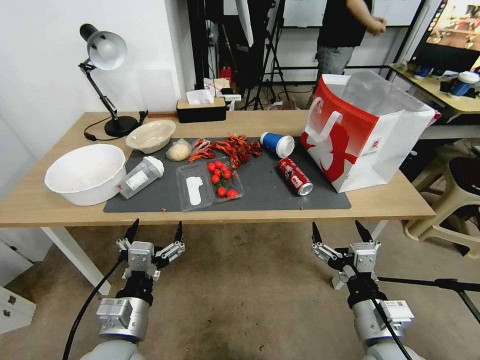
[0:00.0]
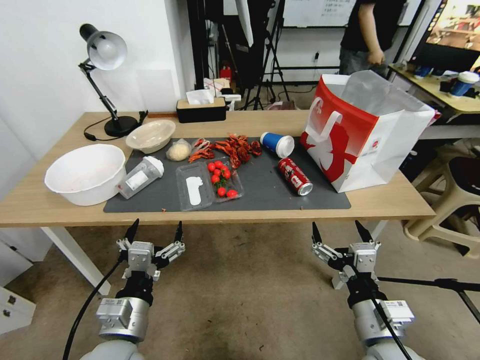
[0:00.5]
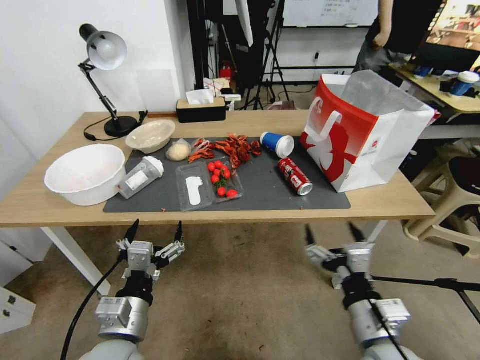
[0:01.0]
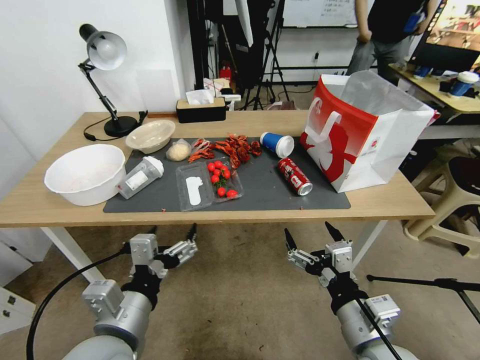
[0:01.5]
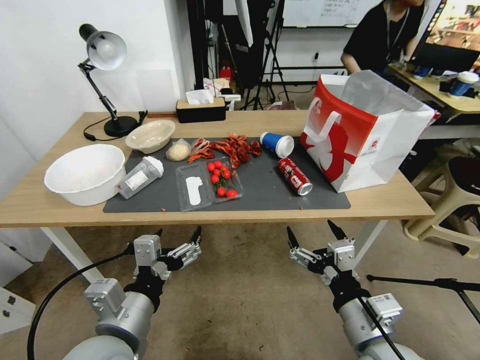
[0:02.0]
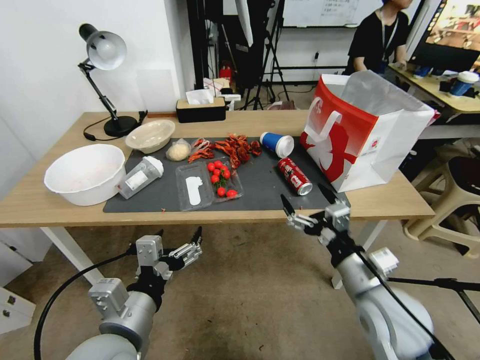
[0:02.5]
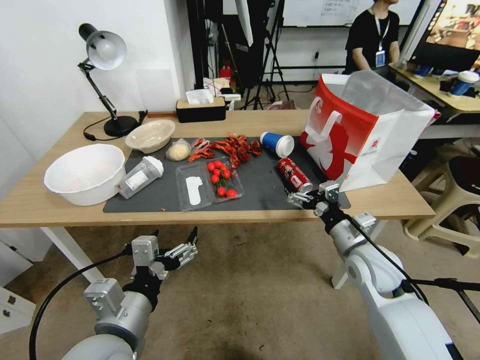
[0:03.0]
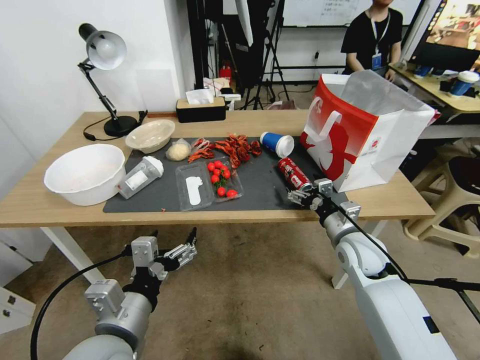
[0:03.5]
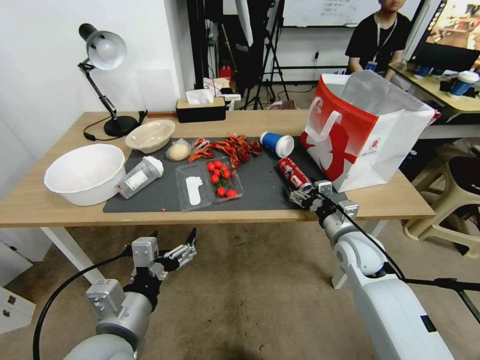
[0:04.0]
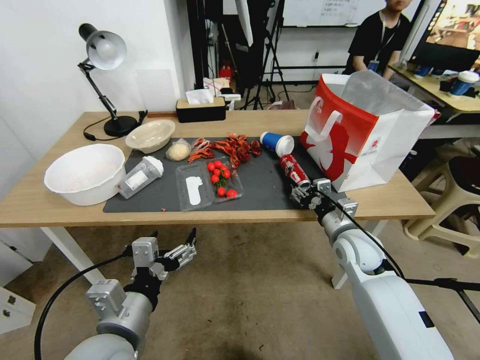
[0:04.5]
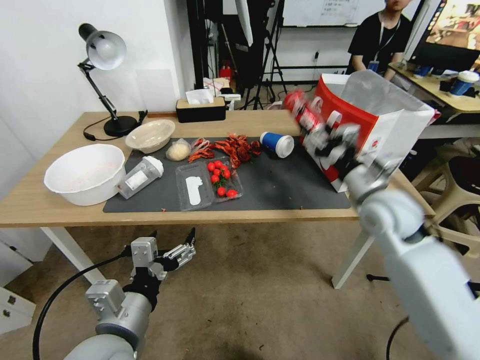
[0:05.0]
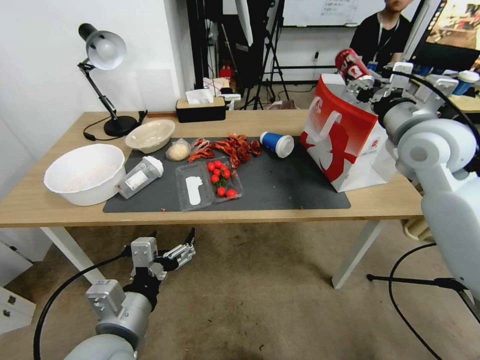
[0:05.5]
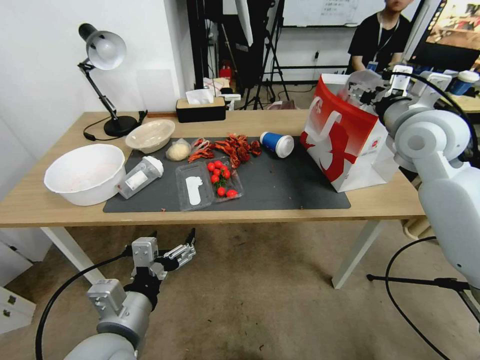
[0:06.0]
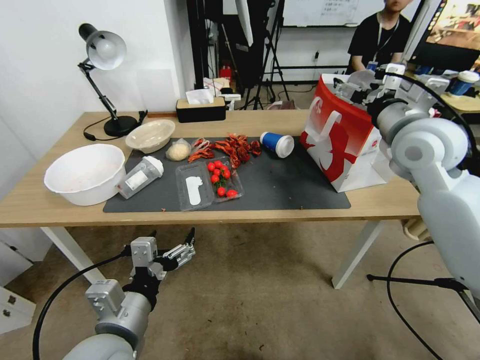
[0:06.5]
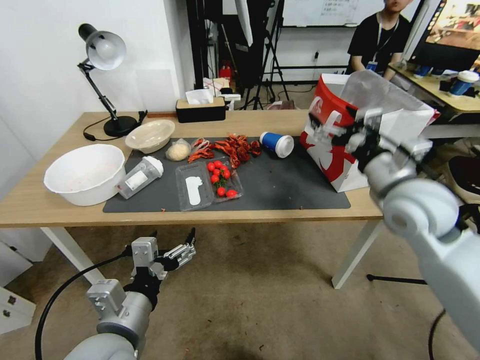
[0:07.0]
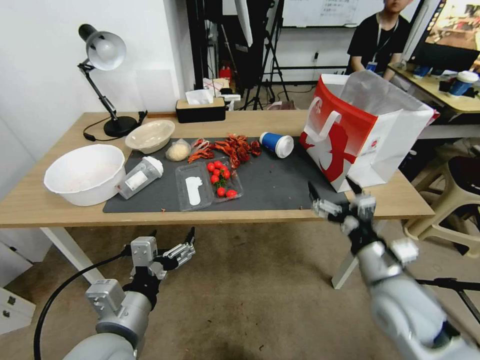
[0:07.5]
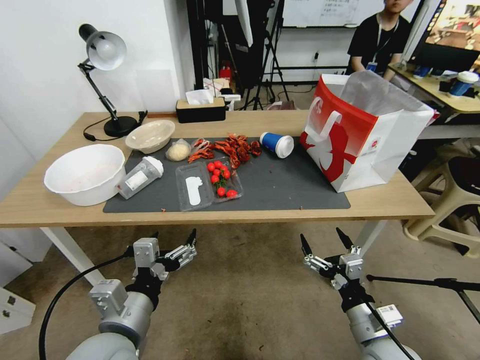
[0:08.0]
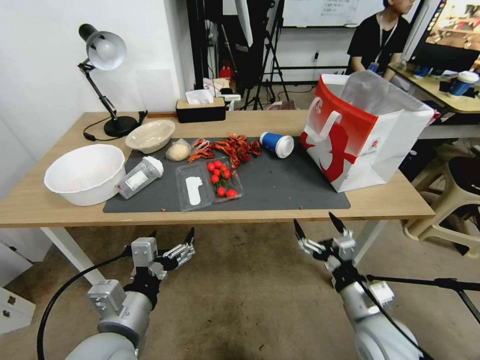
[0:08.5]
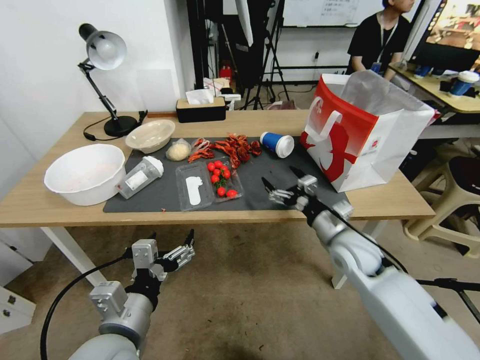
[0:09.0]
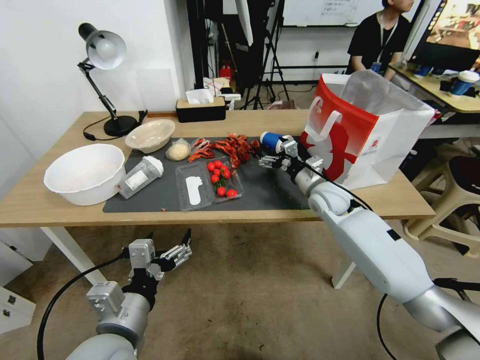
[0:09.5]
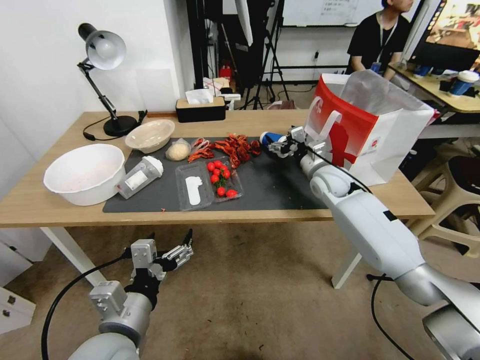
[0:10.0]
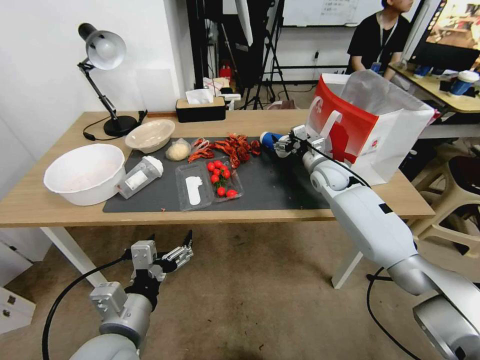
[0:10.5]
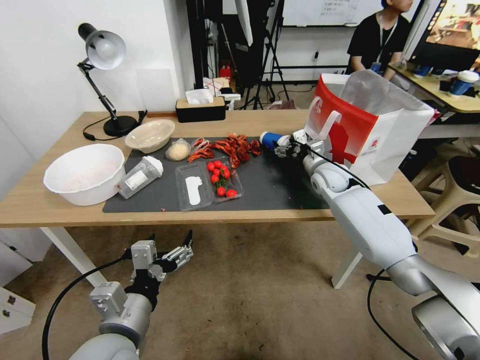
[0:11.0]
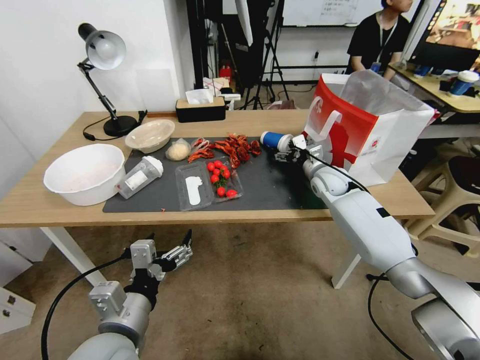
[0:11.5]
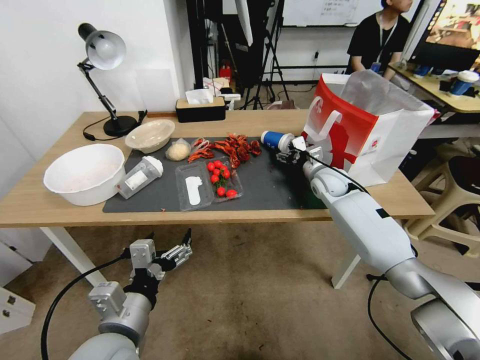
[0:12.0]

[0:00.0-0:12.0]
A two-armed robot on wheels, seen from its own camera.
0:02.0 to 0:04.0: The right gripper moves forward, about 20 cm, and closes up.
0:04.0 to 0:06.0: The right gripper is displaced upward by approximately 25 cm, and closes, then opens again.
0:06.0 to 0:08.0: The right gripper moves downward and backward, approximately 40 cm, and opens.
0:08.0 to 0:10.0: The right gripper travels forward by approximately 35 cm.
0:10.0 to 0:12.0: The grippers stay close to where they were, moving slightly.

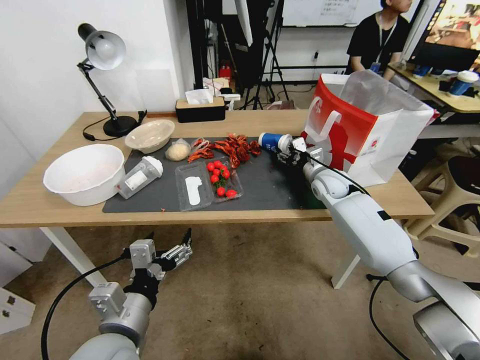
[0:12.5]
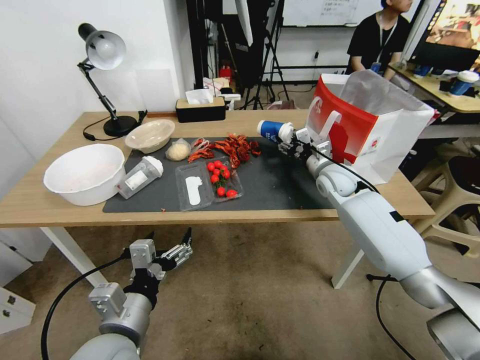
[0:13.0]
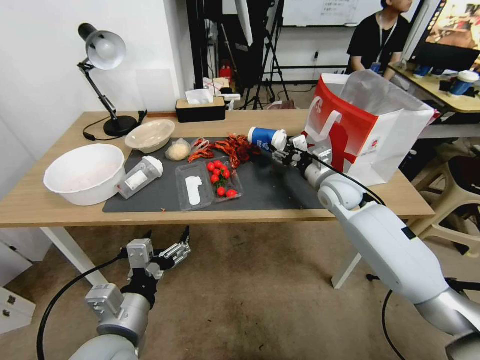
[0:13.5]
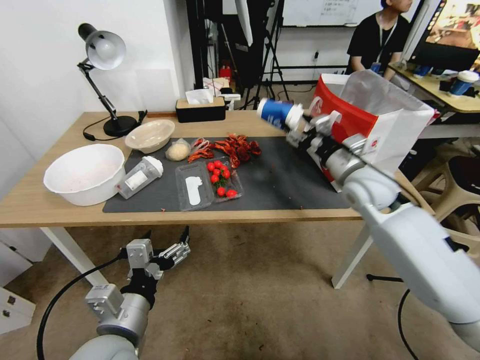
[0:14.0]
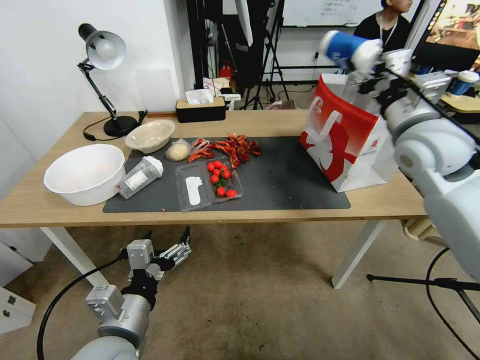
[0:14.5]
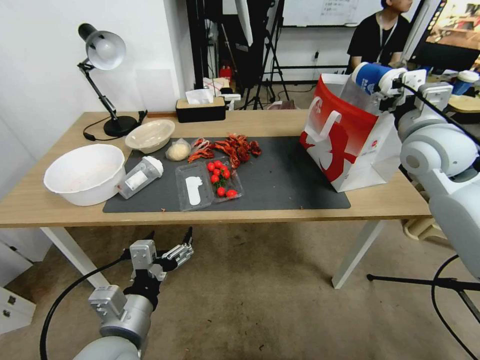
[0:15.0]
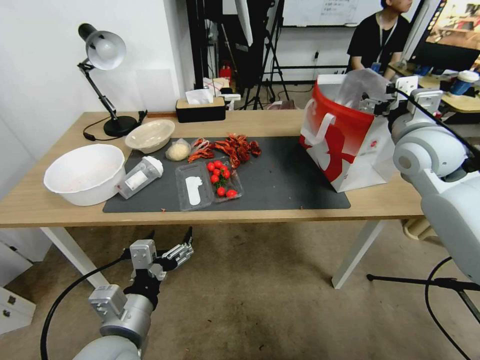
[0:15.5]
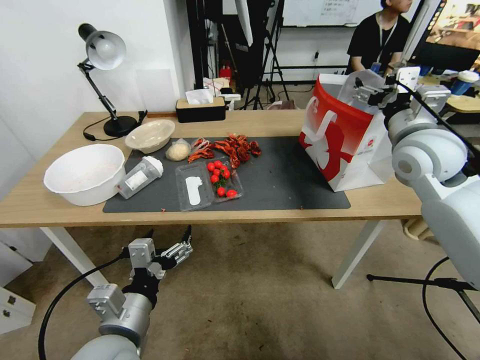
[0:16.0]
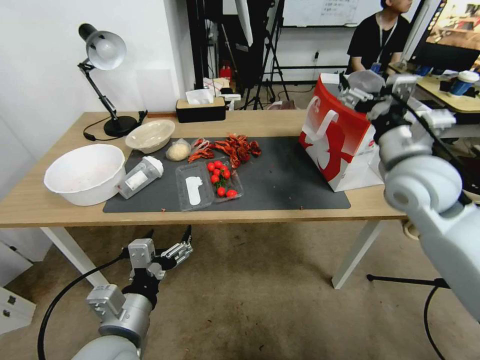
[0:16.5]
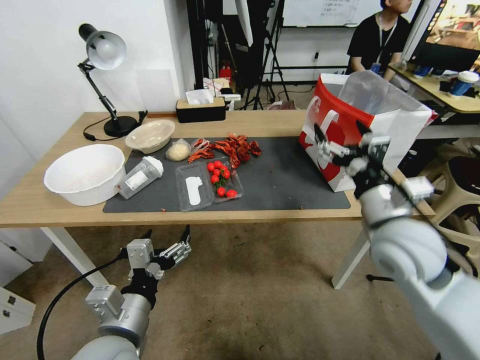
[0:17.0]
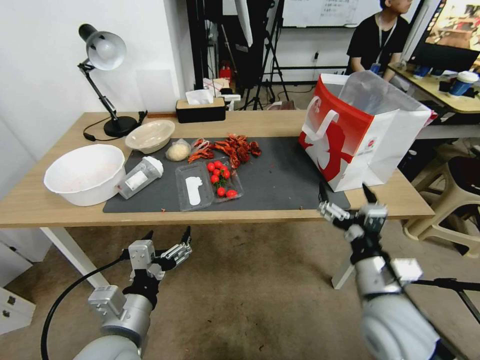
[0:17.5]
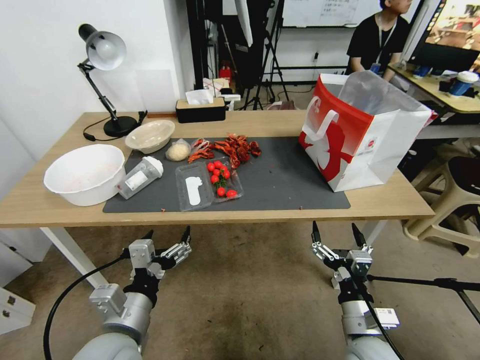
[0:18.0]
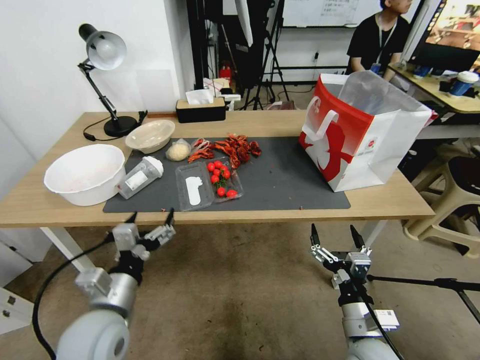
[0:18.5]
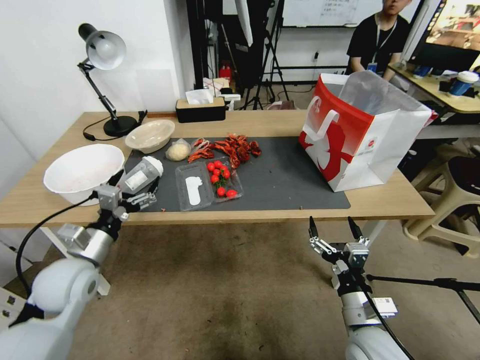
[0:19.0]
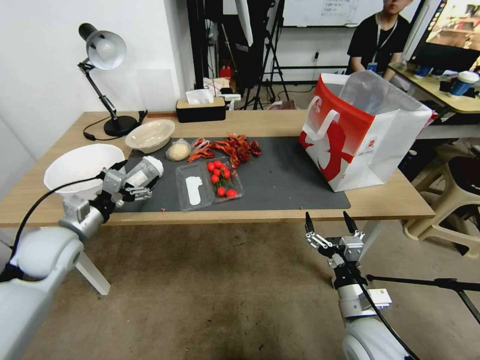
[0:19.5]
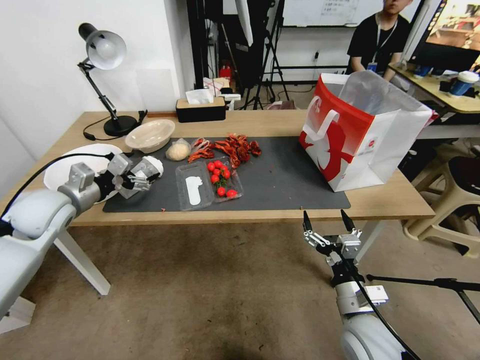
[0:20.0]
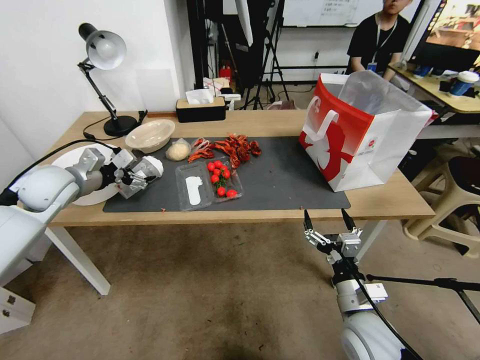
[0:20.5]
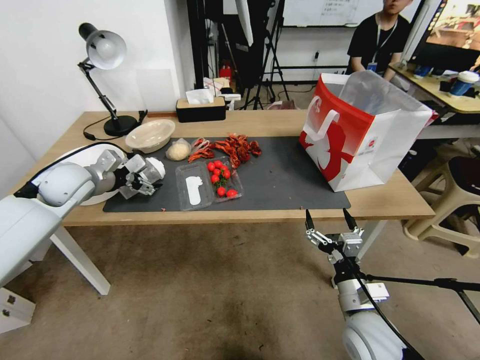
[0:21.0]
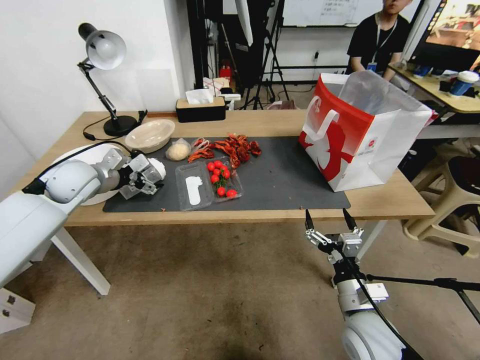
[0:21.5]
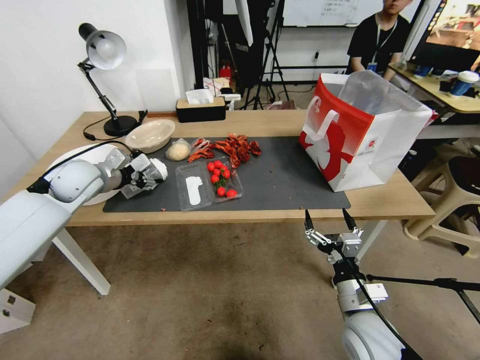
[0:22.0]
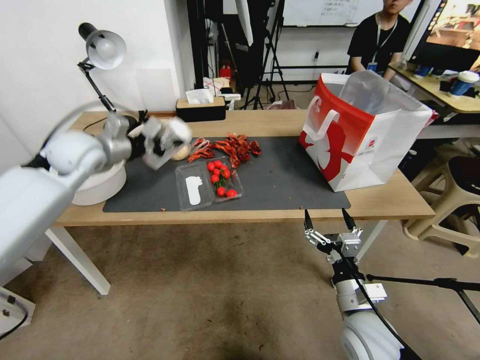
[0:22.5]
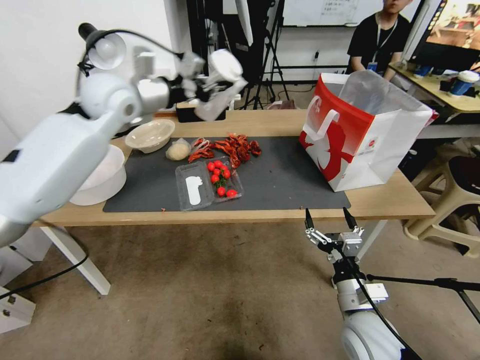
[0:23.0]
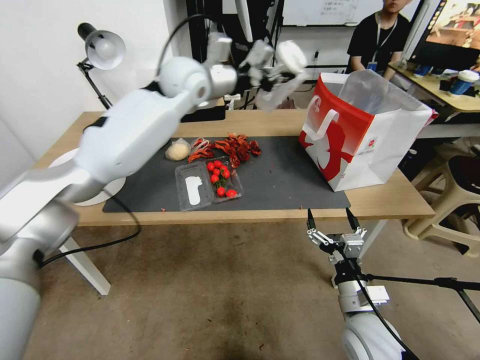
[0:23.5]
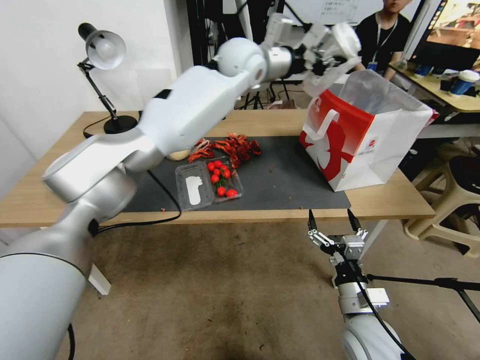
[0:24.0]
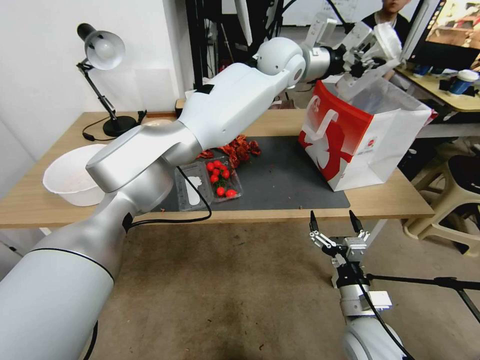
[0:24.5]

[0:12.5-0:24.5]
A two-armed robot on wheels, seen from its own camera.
0:12.5 to 0:14.5: The right gripper heads upward and backward, covering approximately 25 cm.
0:14.5 to 0:16.5: The right gripper shifts by about 5 cm, and opens up.
0:16.5 to 0:18.5: The right gripper goes about 35 cm downward and backward; the left gripper changes place by approximately 5 cm.
0:18.5 to 0:20.5: The left gripper is displaced forward, to the left and upward by about 30 cm.
0:20.5 to 0:22.5: The left gripper heads to the right, covering roughly 5 cm, and closes.
0:22.5 to 0:24.5: The left gripper is displaced to the right by approximately 40 cm.

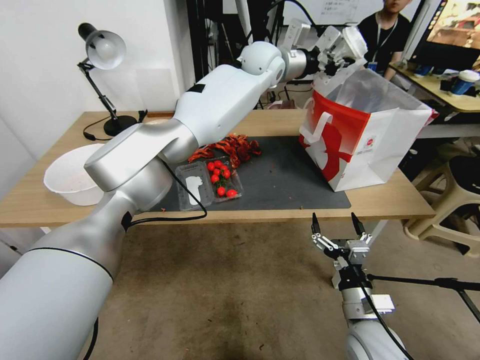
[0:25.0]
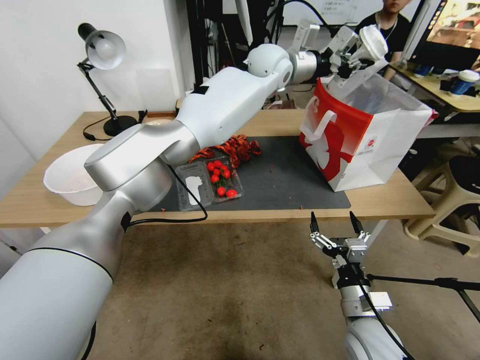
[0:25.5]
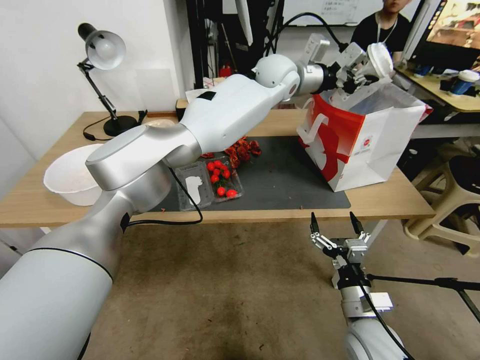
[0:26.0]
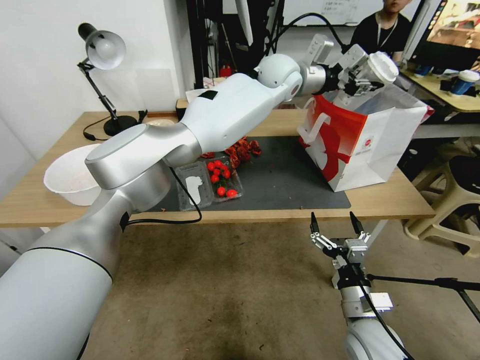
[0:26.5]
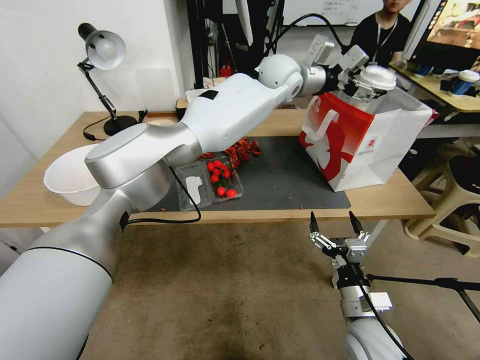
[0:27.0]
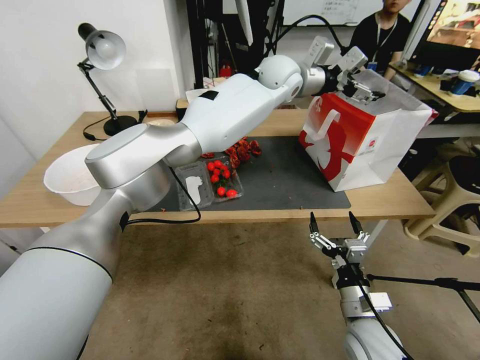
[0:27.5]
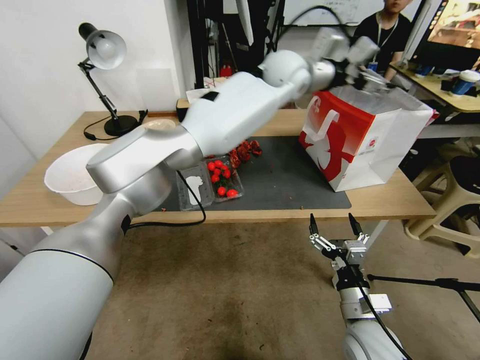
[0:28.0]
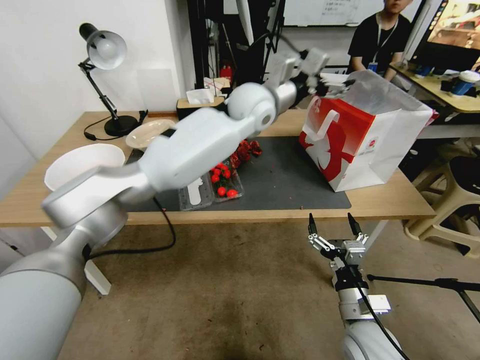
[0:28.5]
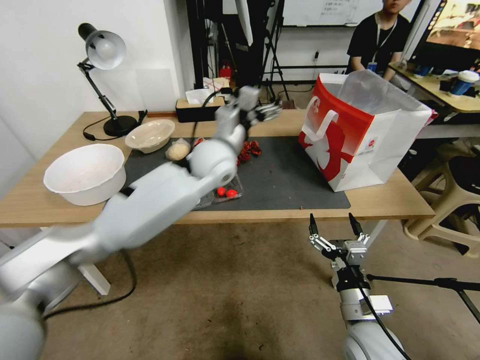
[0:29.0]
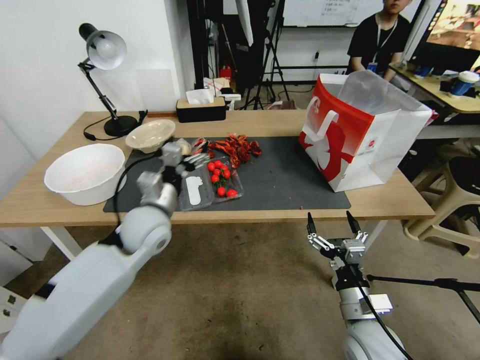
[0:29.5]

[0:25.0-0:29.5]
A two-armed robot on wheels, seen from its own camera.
0:25.0 to 0:27.0: The left gripper moves roughly 5 cm, and opens its fingers.
0:27.0 to 0:29.5: The left gripper is displaced to the left, backward and downward by some 35 cm.
